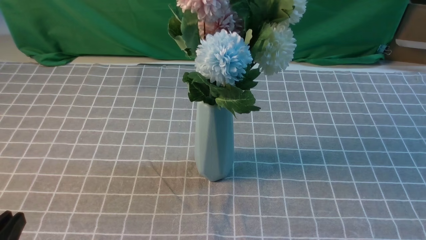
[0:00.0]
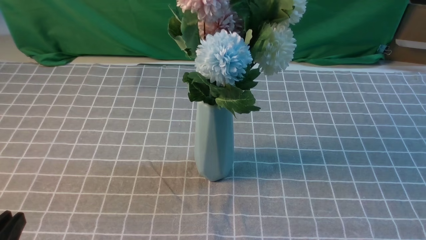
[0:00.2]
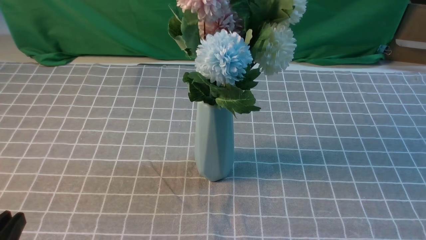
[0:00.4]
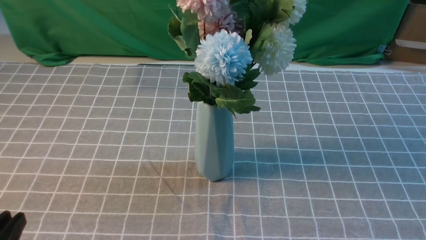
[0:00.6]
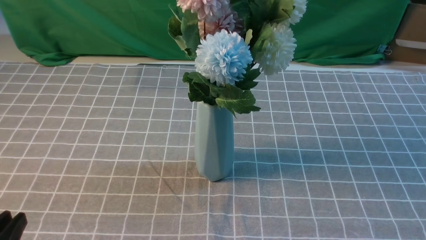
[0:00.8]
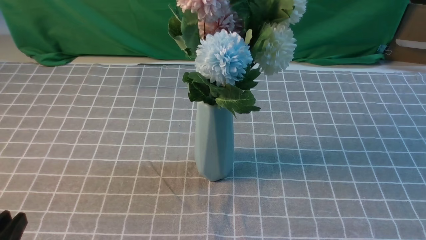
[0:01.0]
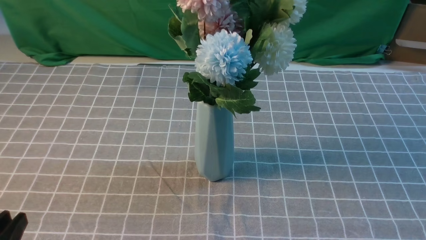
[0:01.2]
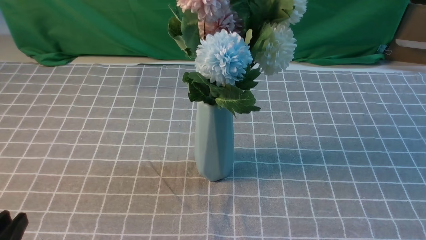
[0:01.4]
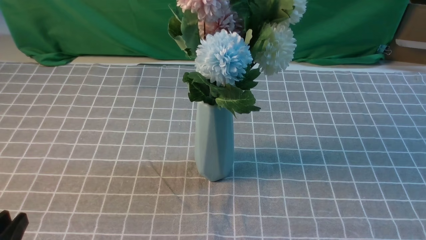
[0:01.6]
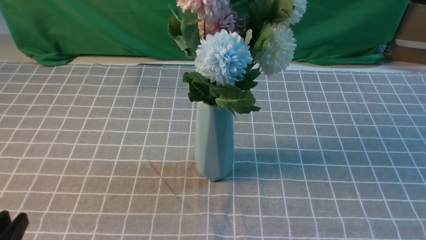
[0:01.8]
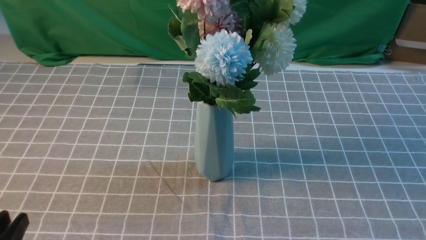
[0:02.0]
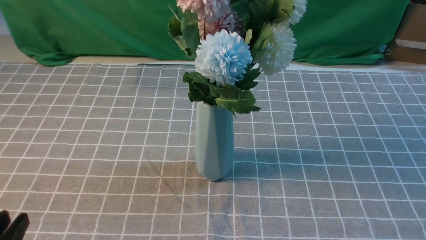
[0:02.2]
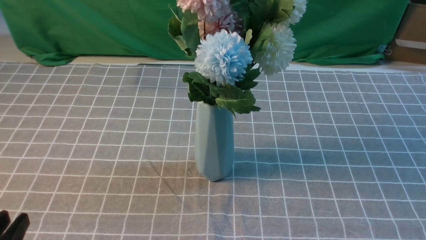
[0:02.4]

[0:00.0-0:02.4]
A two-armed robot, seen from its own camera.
Task of the whole recording: insert the flowers into the vase on the table with the grey tablecloth.
0:01.2 to 0:02.4: Both grippers stay put.
